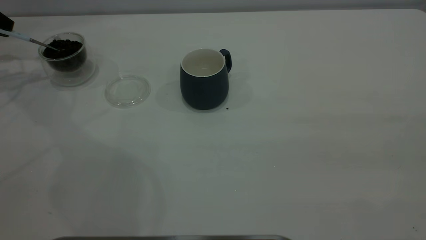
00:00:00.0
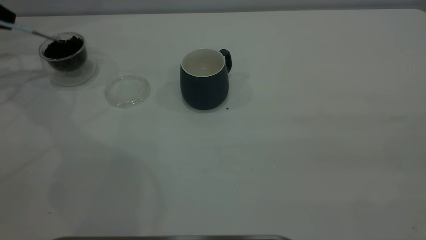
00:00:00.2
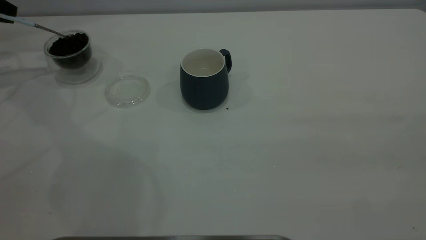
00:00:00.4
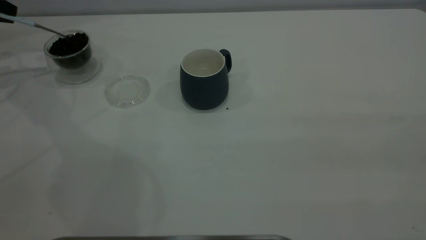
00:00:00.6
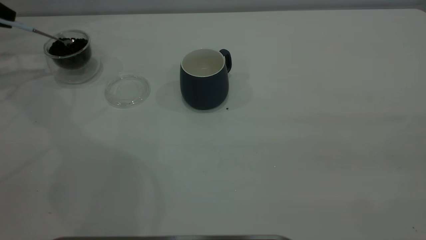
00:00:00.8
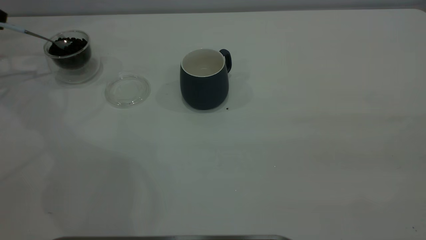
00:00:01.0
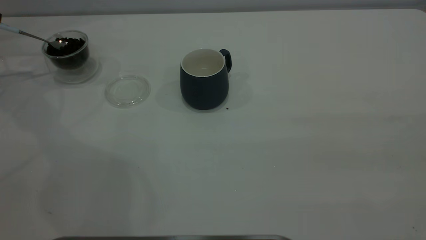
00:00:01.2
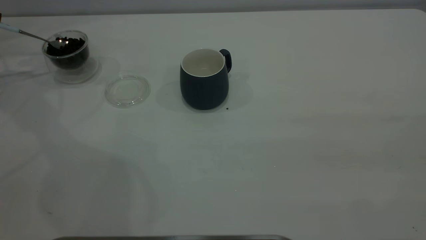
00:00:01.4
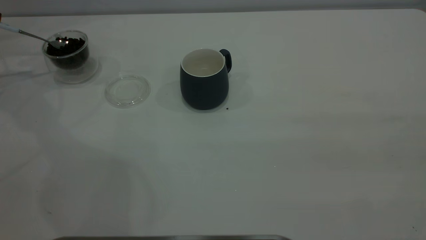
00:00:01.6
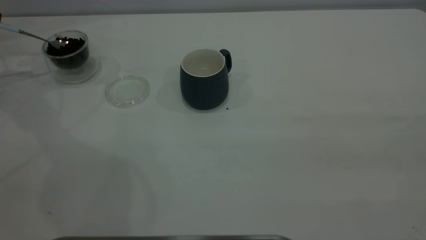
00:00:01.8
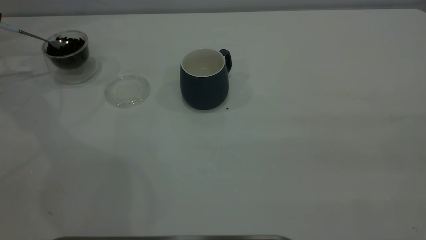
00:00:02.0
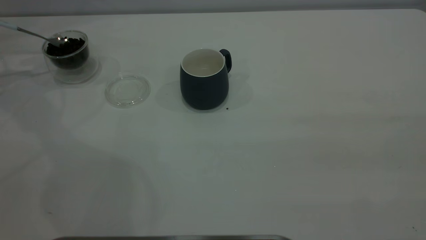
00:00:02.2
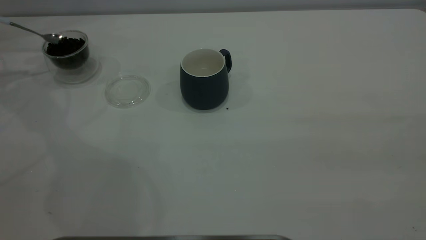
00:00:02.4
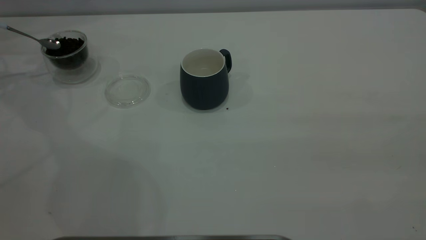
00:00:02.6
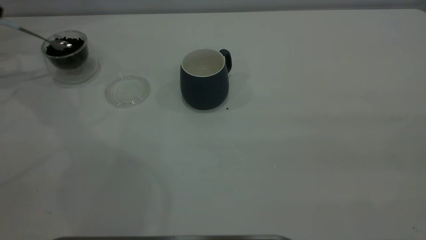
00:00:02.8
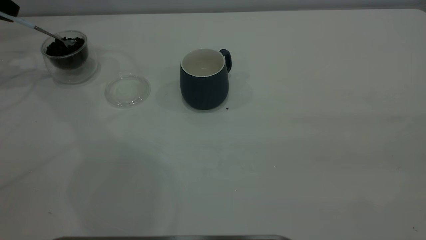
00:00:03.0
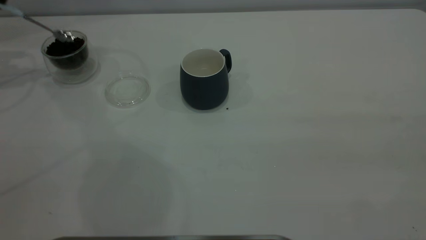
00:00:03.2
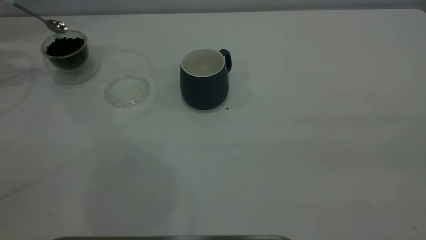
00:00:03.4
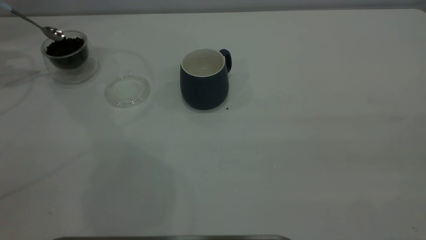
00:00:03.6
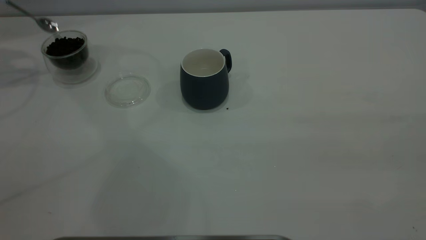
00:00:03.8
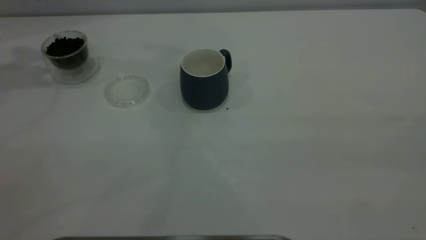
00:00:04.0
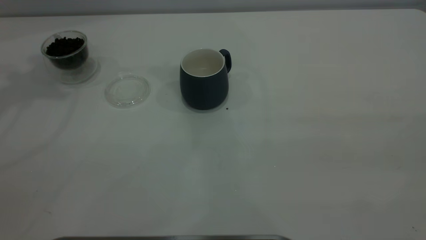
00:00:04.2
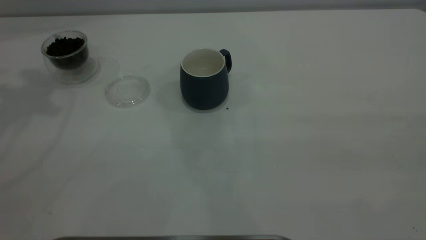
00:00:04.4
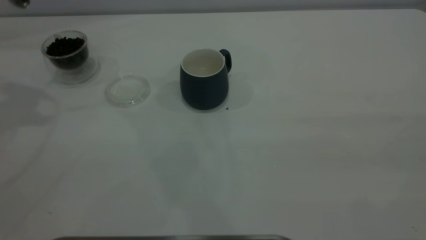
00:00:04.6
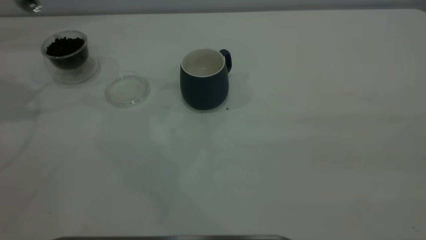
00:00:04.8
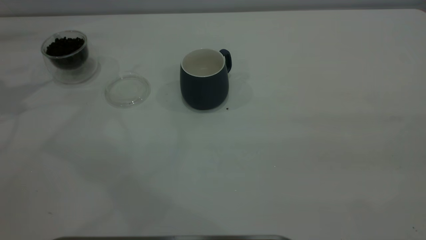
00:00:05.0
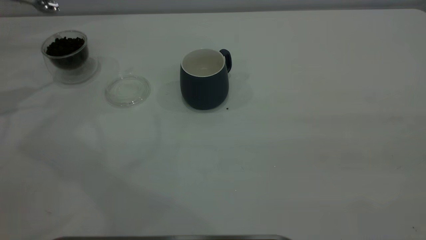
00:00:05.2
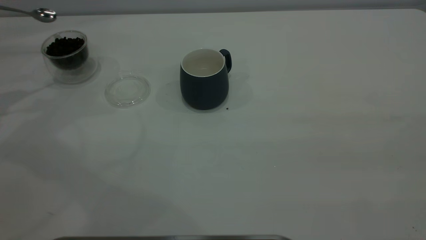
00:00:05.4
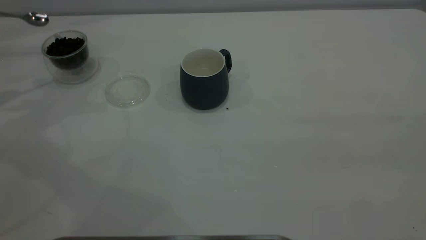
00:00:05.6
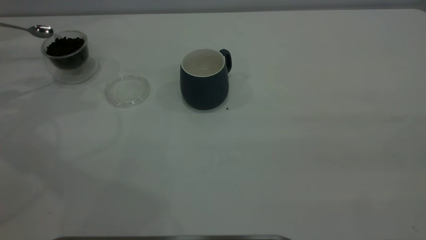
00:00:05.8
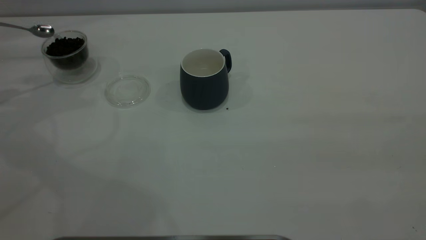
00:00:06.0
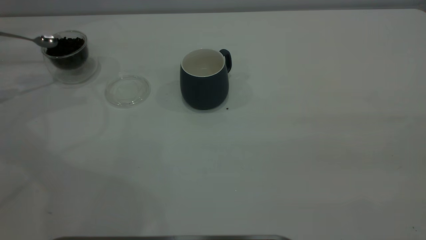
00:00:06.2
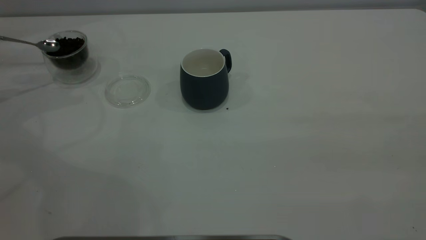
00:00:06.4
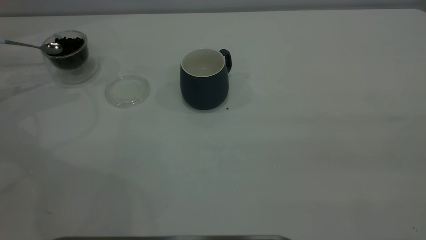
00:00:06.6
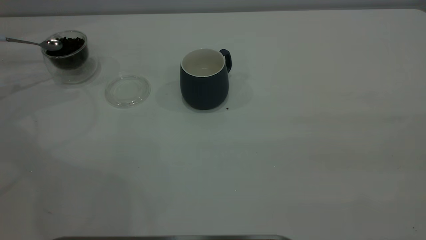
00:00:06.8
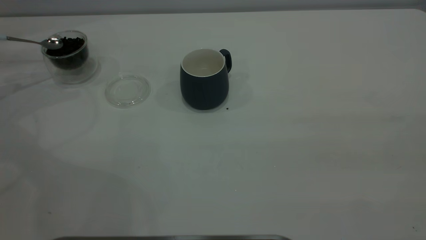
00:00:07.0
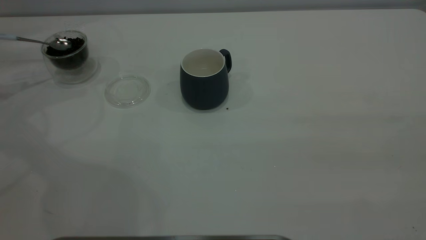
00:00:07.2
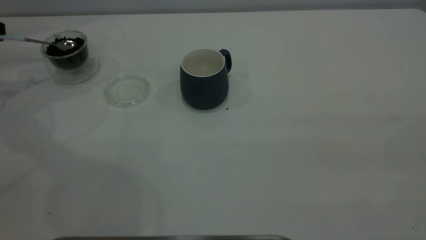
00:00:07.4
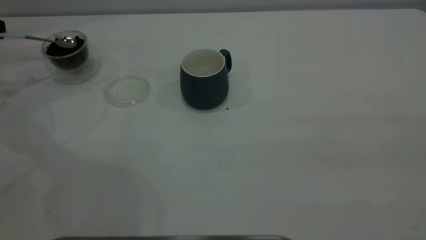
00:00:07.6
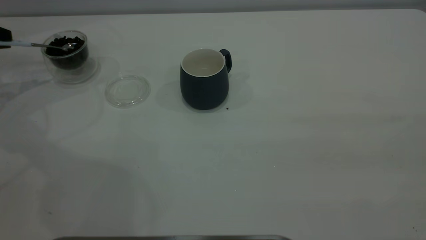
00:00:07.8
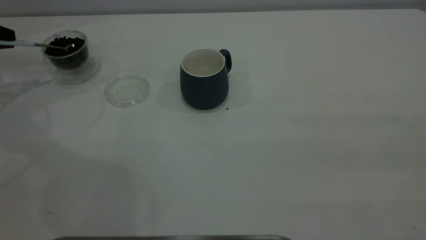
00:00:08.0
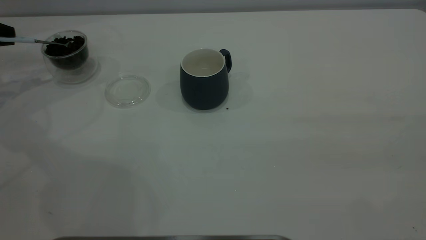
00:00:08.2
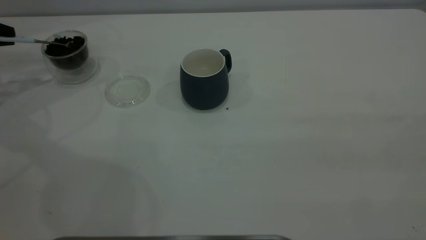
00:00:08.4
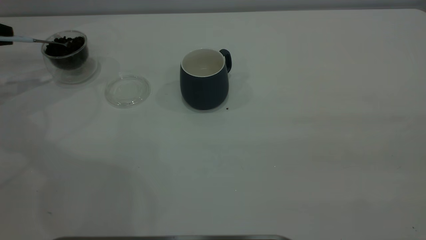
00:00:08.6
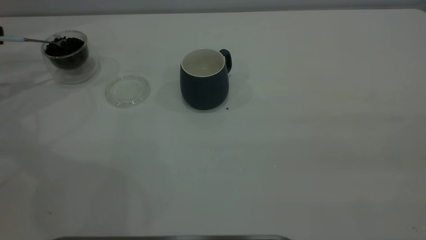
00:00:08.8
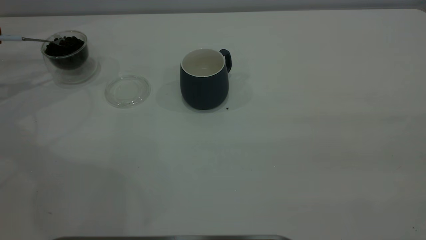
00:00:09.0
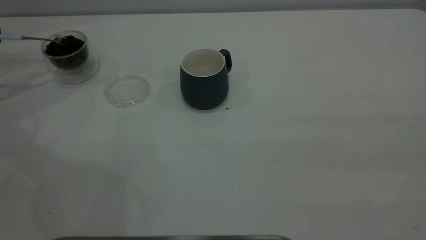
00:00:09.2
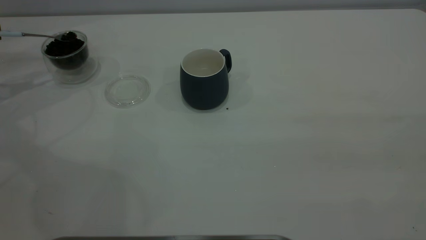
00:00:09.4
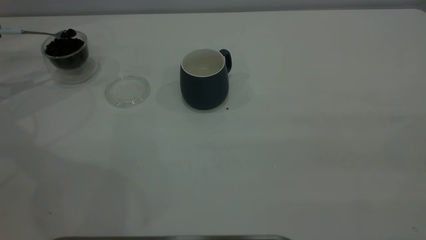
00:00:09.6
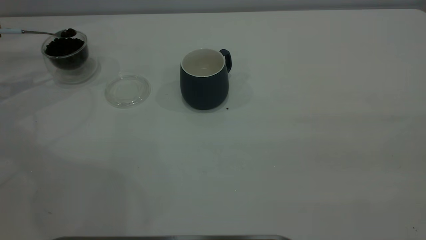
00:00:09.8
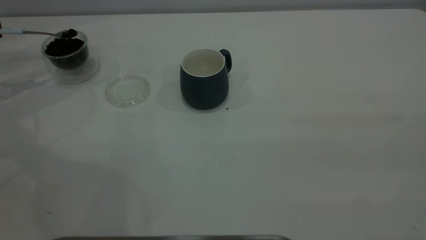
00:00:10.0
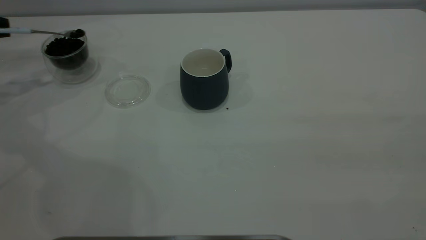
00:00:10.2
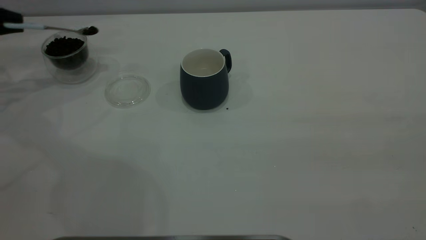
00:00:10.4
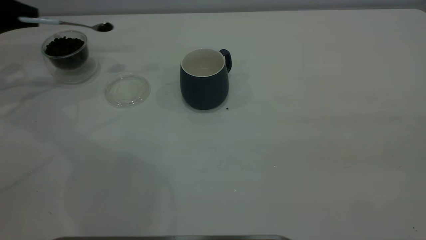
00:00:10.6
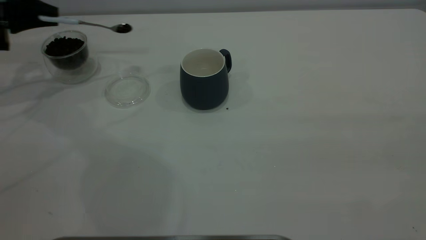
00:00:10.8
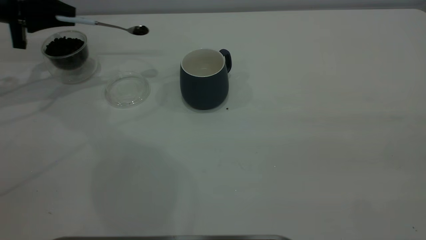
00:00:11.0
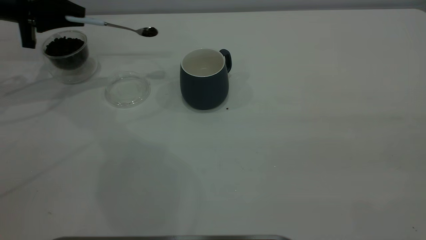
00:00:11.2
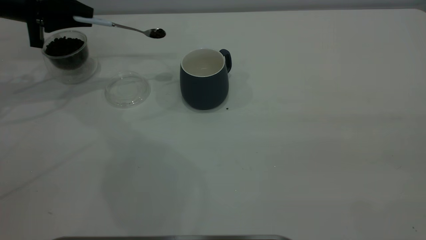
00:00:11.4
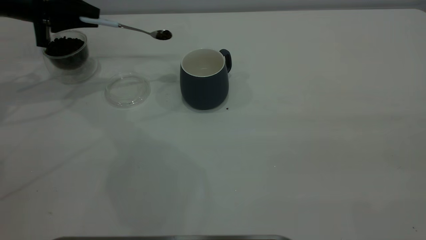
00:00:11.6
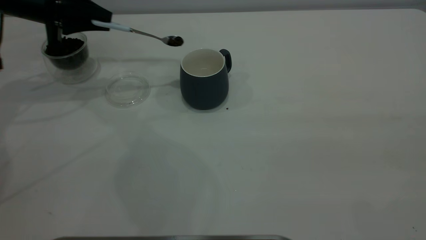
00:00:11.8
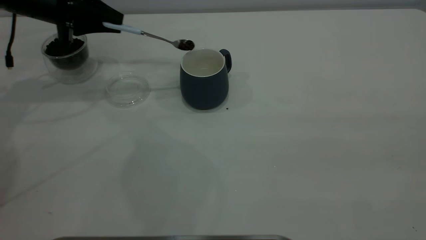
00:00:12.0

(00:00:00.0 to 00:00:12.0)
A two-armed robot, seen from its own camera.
Task of the whole recording: the right gripper place the grey cup in the center of the table, the left gripper take the blue spoon from the cup lid and scoop out the coffee beans from the coffee cup and put them into the grey cup, the left gripper put the spoon back into the cup lid.
00:00:09.0 - 00:00:10.4: The left gripper changes place by about 5 cm.
00:00:10.4 - 00:00:12.0: The left gripper moves to the right, approximately 15 cm.

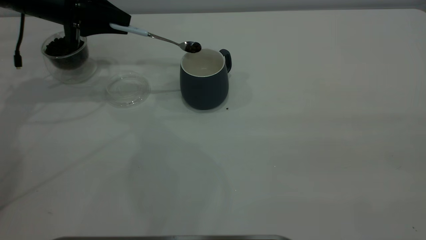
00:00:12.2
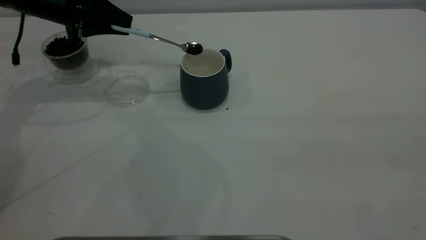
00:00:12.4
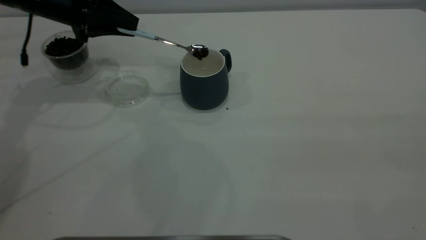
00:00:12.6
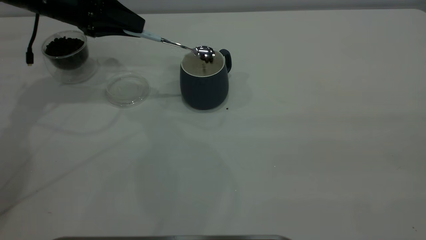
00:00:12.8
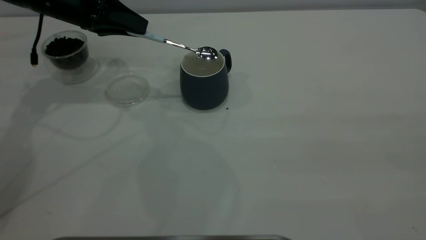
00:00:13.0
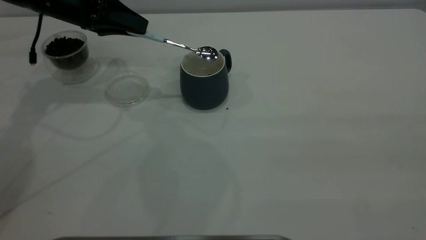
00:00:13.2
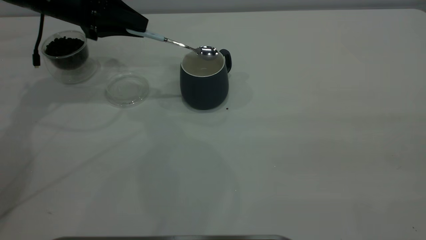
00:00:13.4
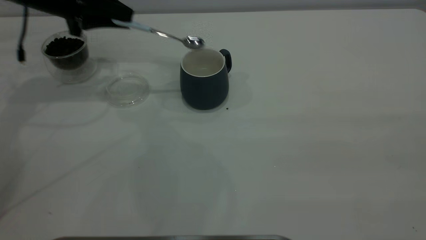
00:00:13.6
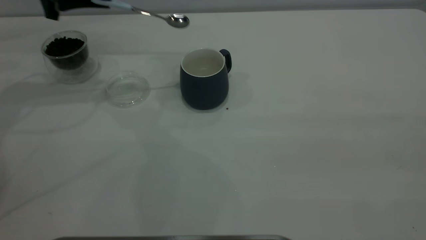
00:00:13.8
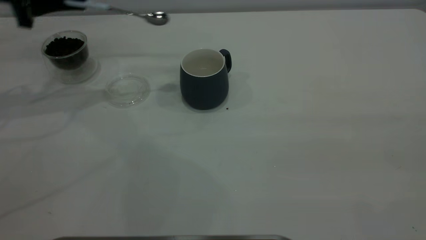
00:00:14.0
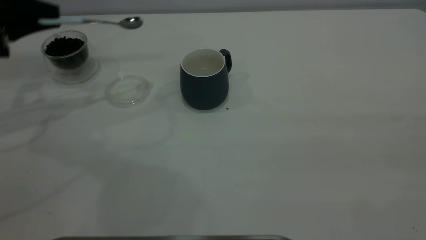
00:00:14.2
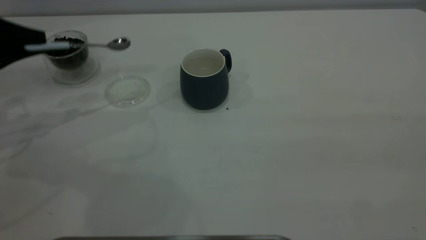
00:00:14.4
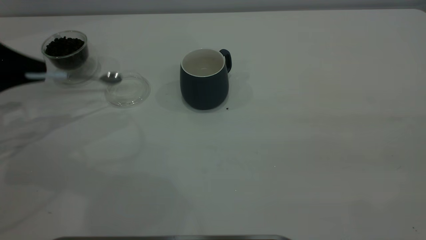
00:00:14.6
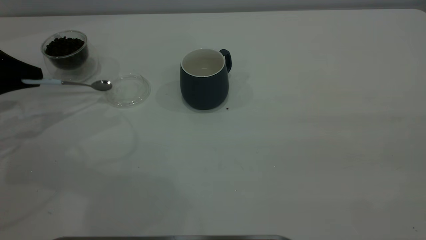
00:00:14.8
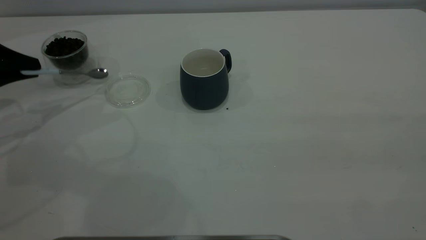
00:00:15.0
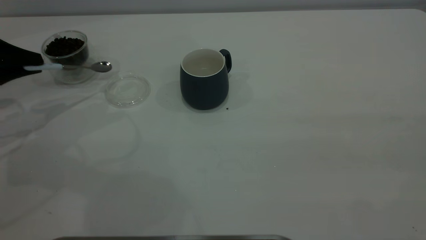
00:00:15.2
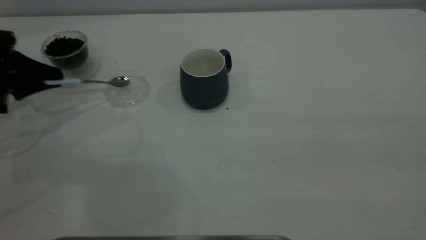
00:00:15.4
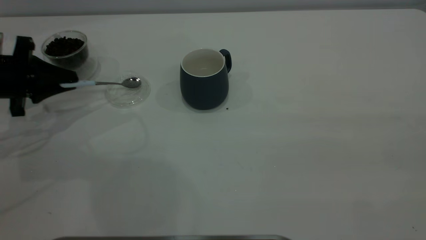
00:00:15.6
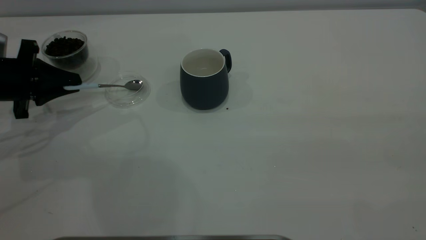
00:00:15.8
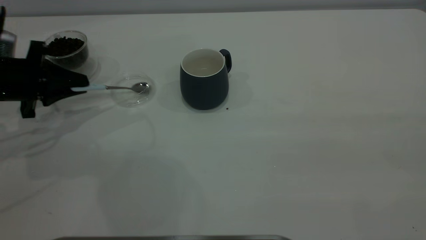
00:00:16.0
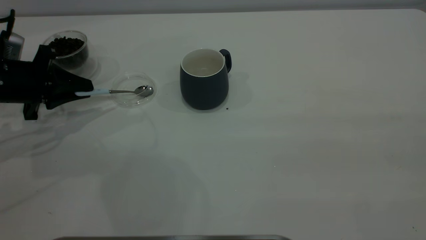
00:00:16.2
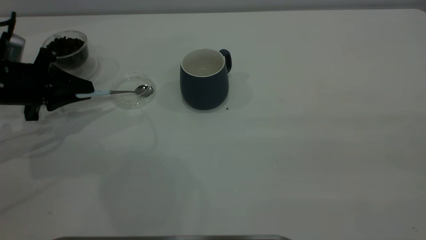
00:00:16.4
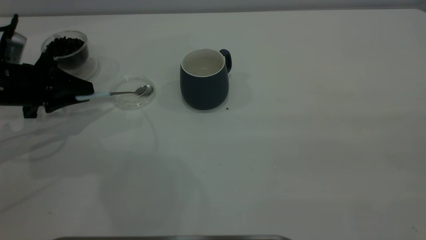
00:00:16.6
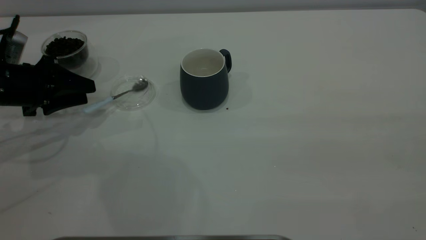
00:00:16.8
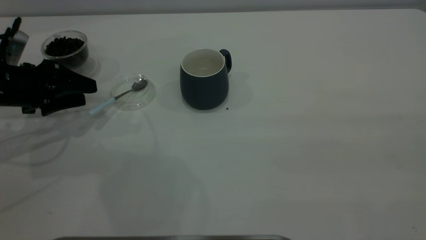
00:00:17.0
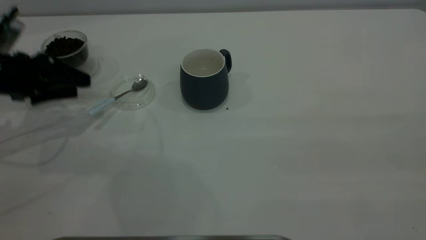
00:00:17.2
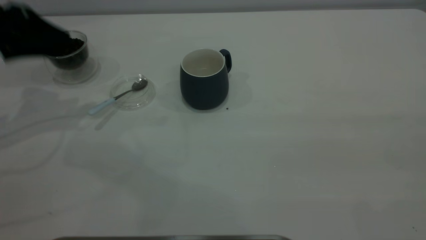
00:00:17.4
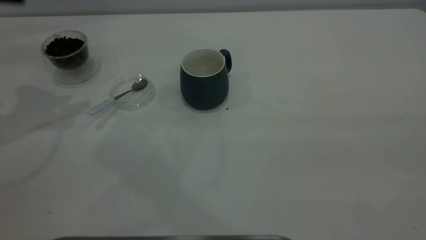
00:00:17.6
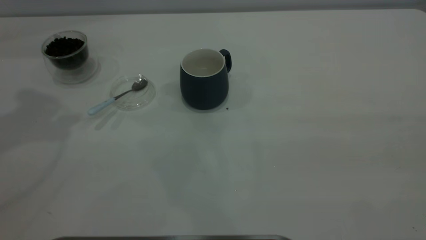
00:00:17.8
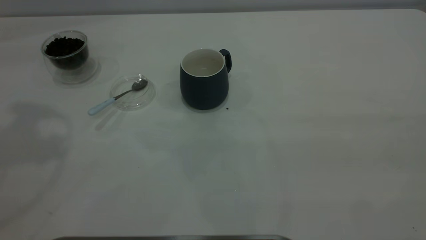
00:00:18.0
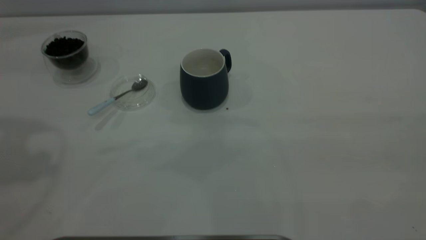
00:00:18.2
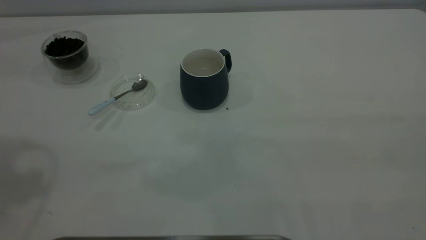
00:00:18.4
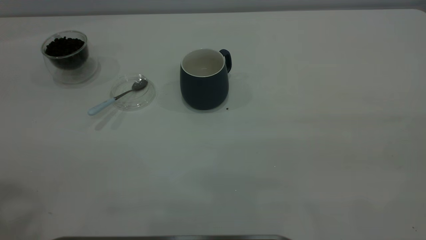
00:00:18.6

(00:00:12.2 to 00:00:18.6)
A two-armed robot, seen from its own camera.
Task of the whole recording: the right gripper place the grey cup in the center of the table, the left gripper take the blue spoon from the cup lid and scoop out the coffee beans from the coffee cup and put them into the grey cup, the left gripper put the spoon back into the cup lid.
Step, 00:00:13.6 - 00:00:17.4: Place the spoon back in its original place.
00:00:12.2 - 00:00:13.8: The left gripper is displaced upward by some 5 cm.
00:00:13.8 - 00:00:15.4: The left gripper shifts roughly 15 cm downward, backward and to the left.
00:00:15.4 - 00:00:17.0: The left gripper opens.
00:00:17.0 - 00:00:18.6: The left gripper goes some 40 cm upward and backward.
